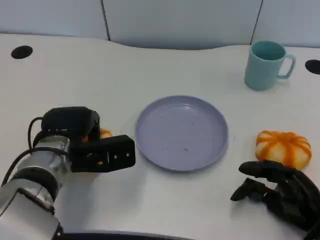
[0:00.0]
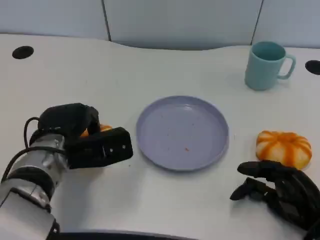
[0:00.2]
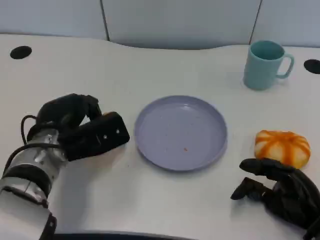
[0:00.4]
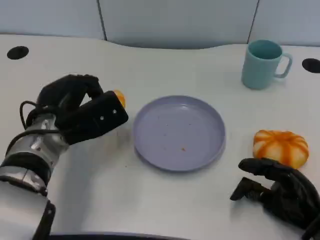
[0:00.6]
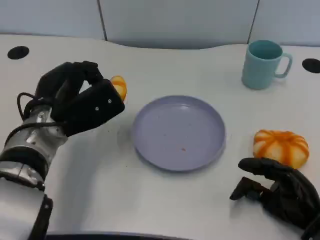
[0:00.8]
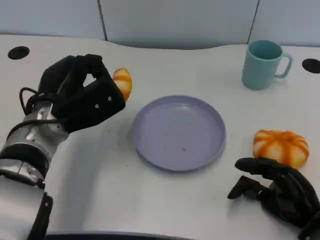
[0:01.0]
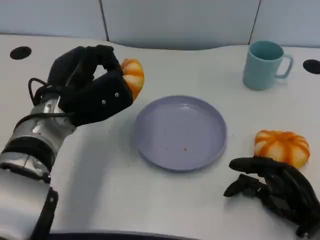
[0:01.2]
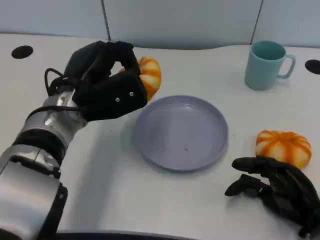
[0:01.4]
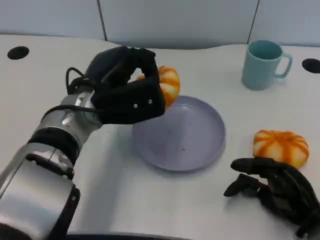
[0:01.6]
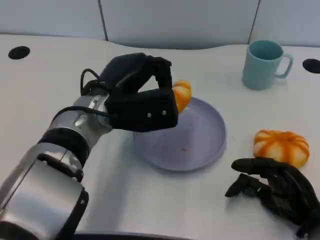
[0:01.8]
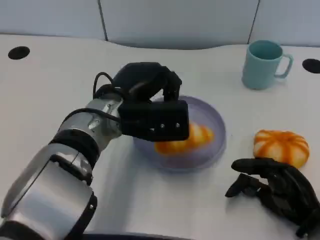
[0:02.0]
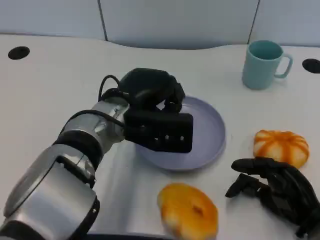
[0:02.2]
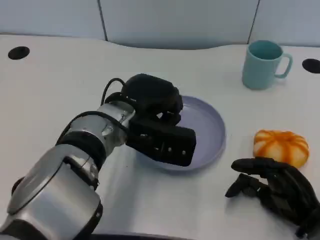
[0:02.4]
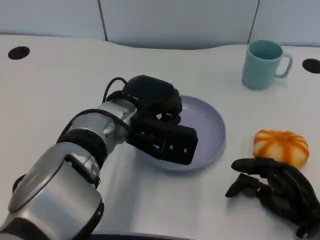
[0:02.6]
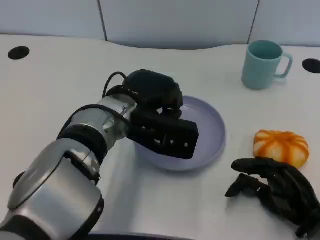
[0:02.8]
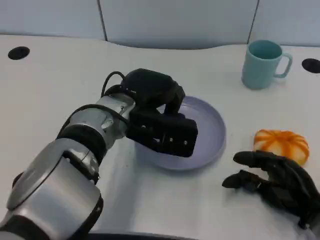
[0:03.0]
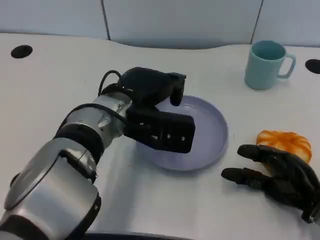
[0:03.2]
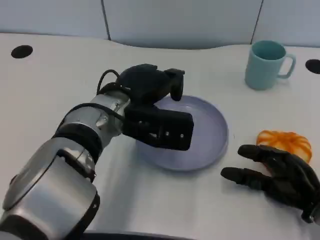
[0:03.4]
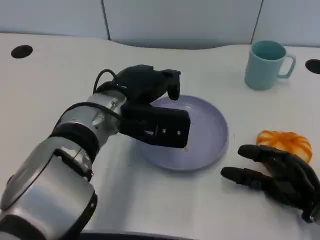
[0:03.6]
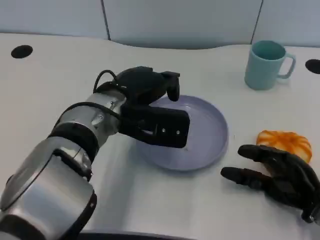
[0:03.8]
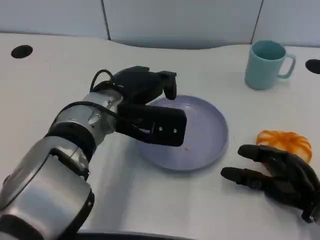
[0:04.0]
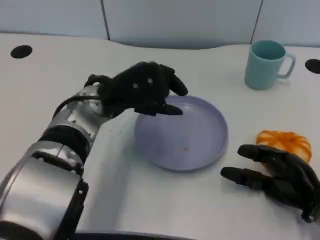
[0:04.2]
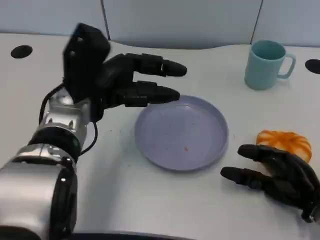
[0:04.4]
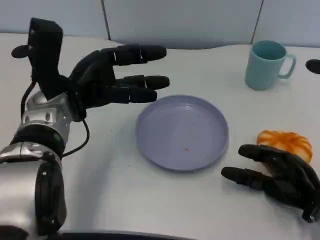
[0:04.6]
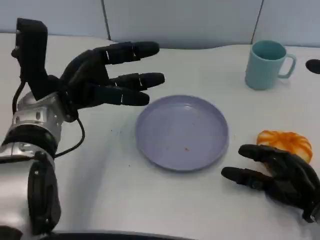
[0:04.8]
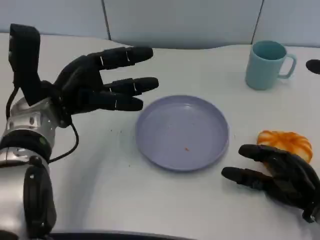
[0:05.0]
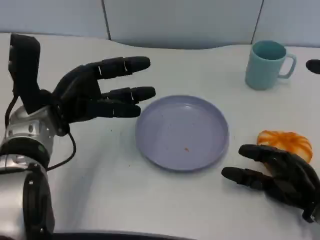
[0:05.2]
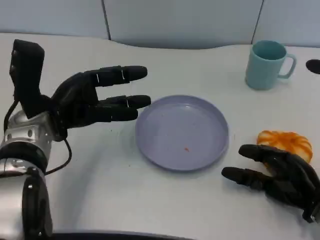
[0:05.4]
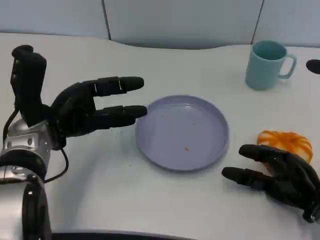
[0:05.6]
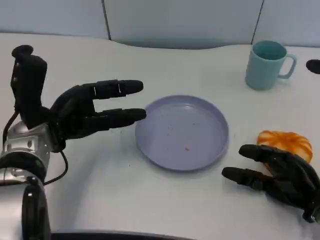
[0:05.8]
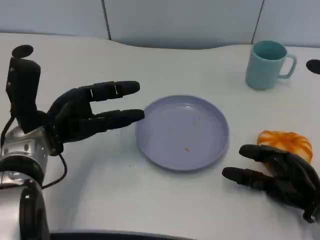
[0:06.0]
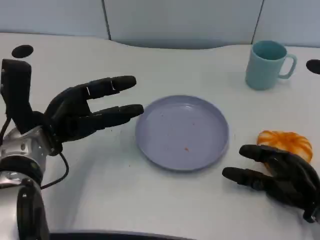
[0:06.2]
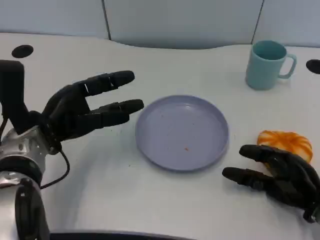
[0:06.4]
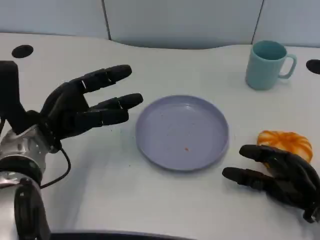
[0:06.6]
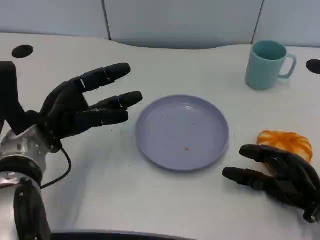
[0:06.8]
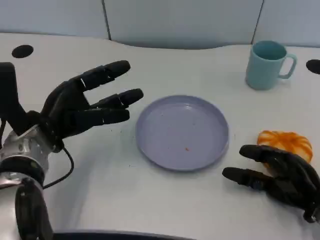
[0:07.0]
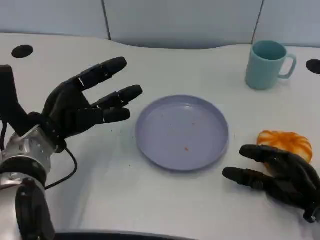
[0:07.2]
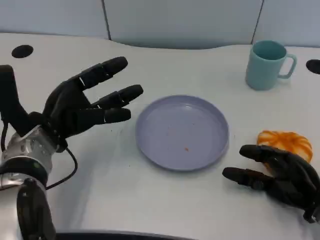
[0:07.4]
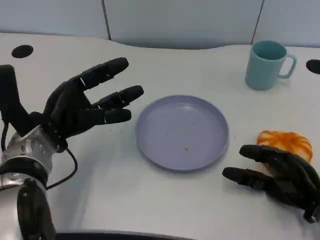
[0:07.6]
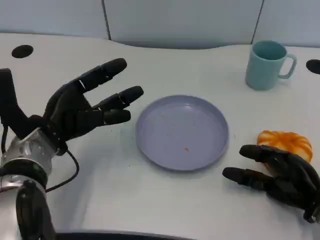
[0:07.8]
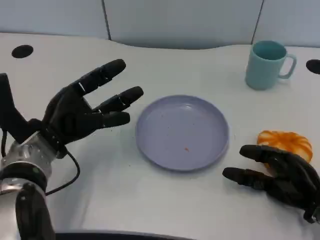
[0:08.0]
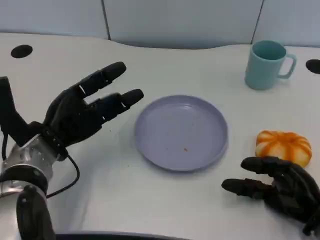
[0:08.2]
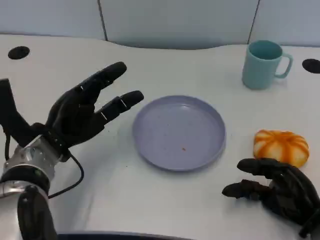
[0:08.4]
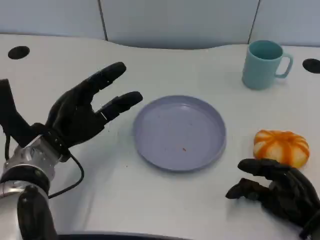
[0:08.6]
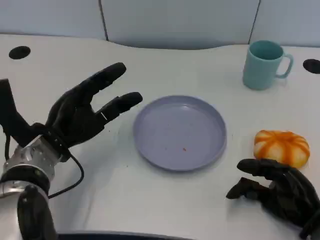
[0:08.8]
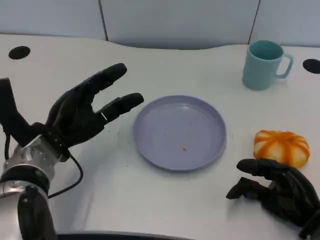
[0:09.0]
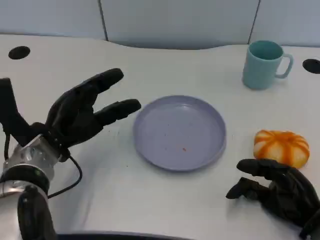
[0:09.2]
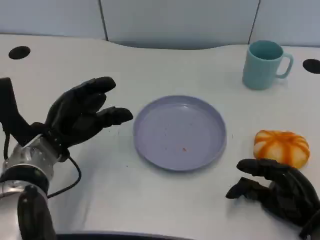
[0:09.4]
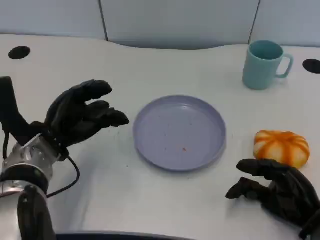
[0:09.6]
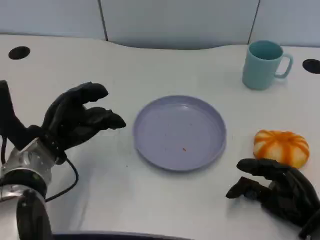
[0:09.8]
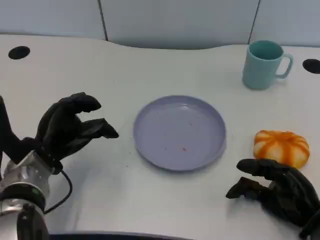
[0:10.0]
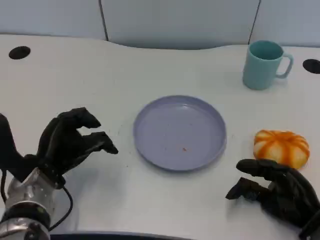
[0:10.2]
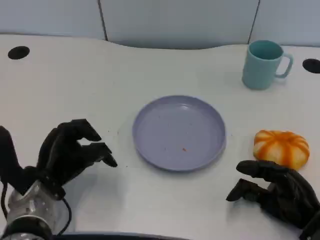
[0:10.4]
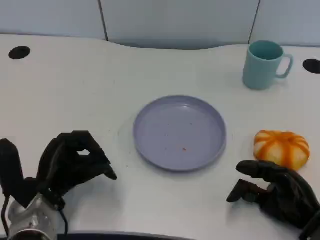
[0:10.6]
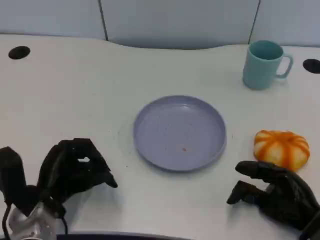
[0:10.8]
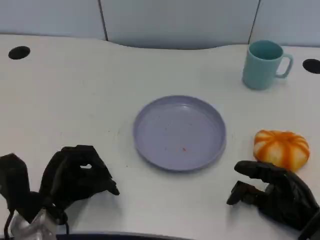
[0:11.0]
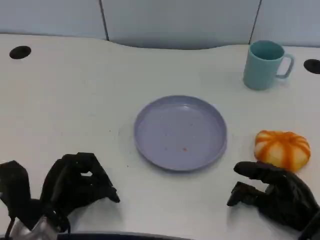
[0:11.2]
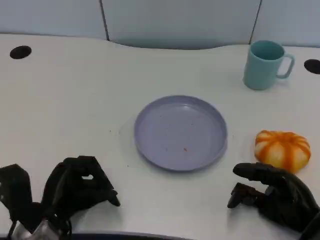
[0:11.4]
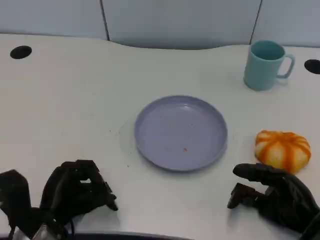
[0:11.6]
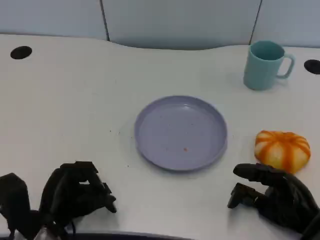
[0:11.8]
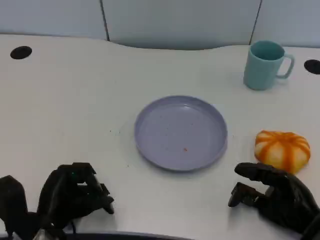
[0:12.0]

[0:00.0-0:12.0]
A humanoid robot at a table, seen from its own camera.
Task of the whole recording: Grasp the bread from the table and place it into the plate.
0:00.0 to 0:01.6: The left hand goes some 10 cm upward and to the right.
0:03.0 to 0:04.4: The left hand moves to the left, approximately 5 cm.
0:04.4 to 0:06.0: The left hand travels to the left by about 5 cm.
0:06.0 to 0:07.6: The hands make only small movements.
0:07.6 to 0:09.0: The hands move only a little.
0:09.0 to 0:10.4: The left hand shifts by approximately 5 cm.
0:10.4 to 0:12.0: The left hand moves backward, some 5 cm.

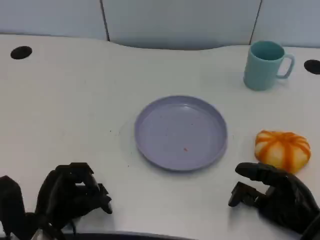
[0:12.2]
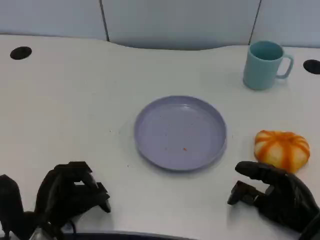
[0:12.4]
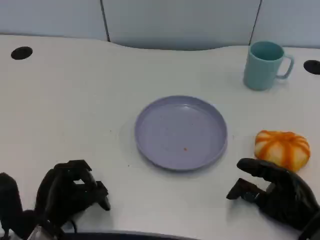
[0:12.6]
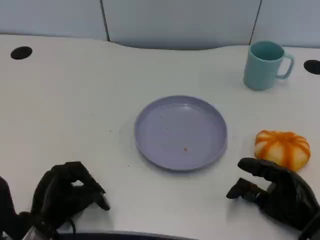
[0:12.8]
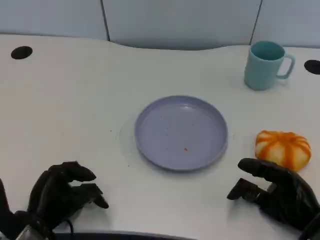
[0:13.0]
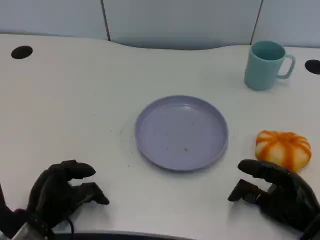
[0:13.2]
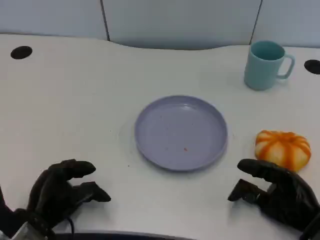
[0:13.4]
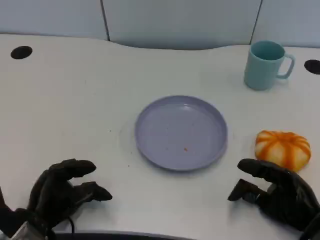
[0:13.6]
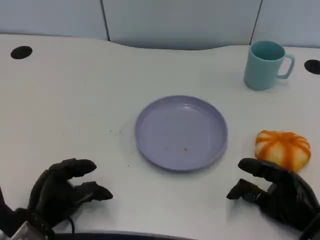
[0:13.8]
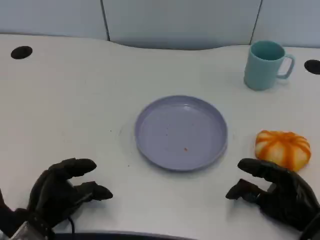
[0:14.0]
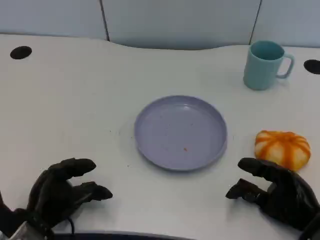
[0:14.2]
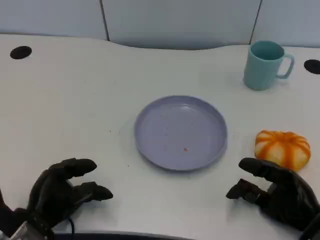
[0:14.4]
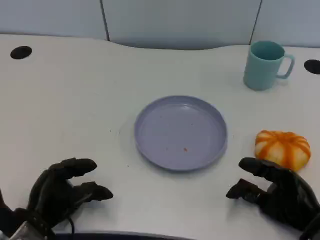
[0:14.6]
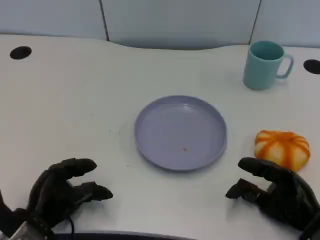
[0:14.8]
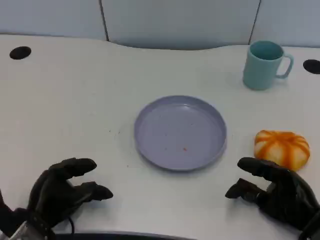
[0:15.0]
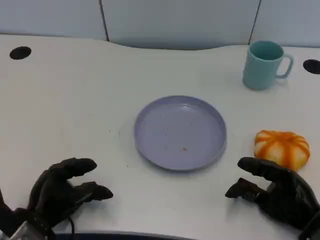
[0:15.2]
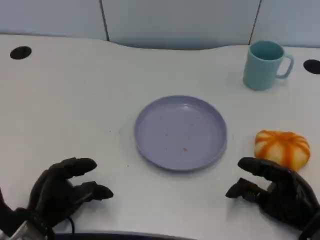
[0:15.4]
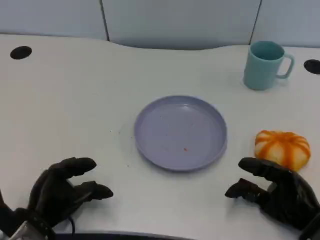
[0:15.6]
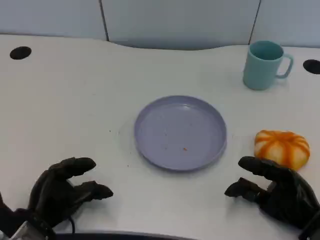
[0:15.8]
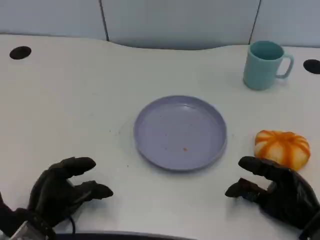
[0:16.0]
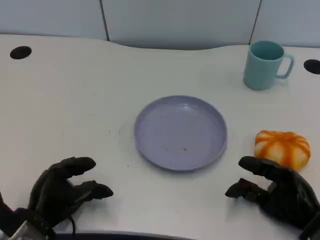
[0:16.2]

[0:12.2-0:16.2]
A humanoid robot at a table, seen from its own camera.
Task of the whole recording: Grasp the bread from the table and place it into the plate.
0:12.2 to 0:13.6: The hands move only a little.
0:13.6 to 0:16.2: Both hands stay about where they are.

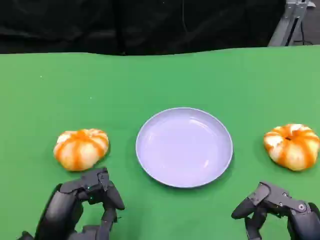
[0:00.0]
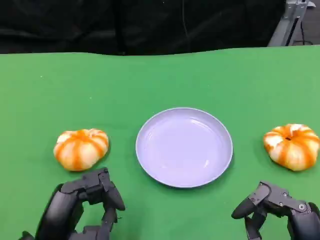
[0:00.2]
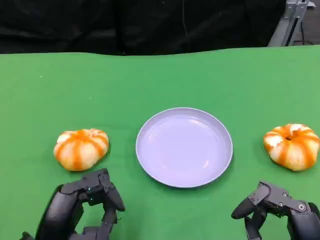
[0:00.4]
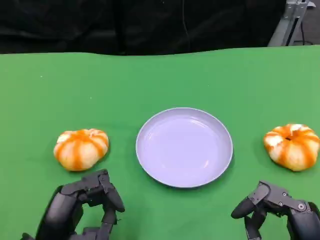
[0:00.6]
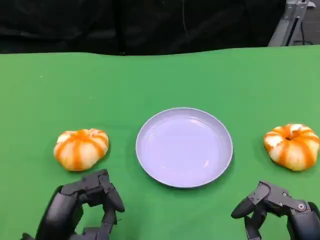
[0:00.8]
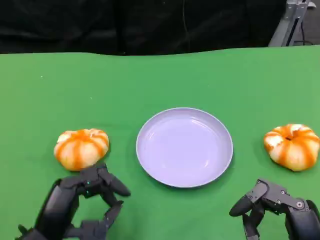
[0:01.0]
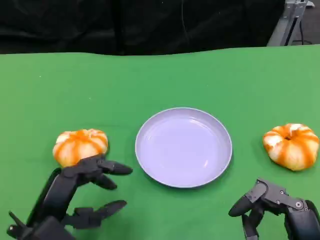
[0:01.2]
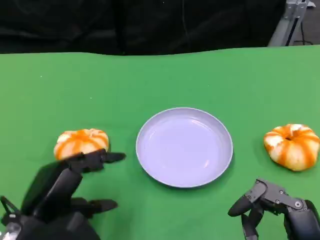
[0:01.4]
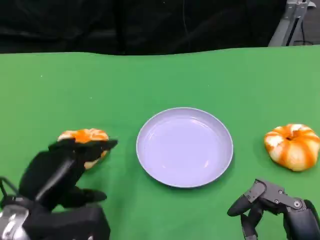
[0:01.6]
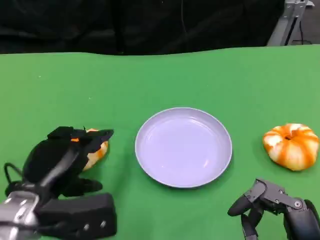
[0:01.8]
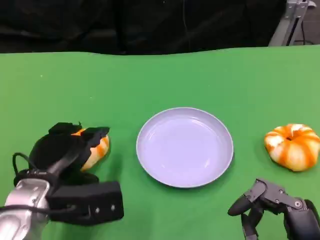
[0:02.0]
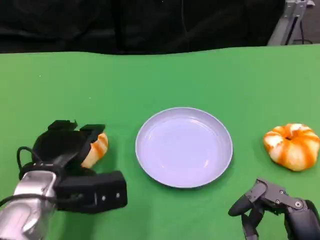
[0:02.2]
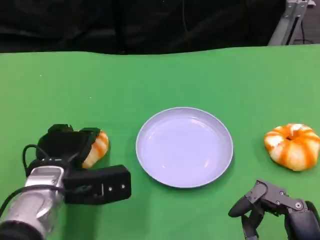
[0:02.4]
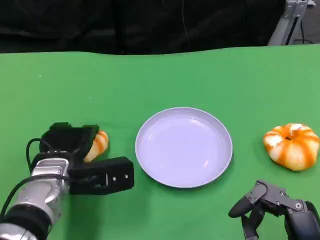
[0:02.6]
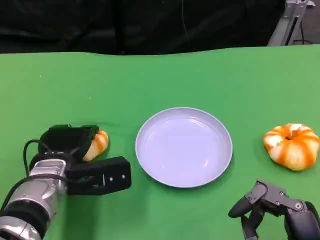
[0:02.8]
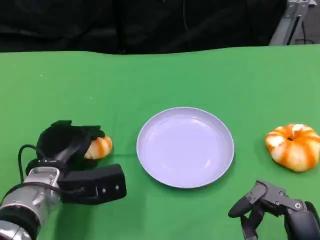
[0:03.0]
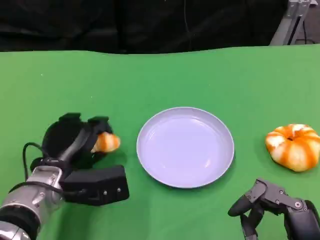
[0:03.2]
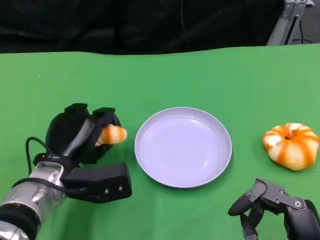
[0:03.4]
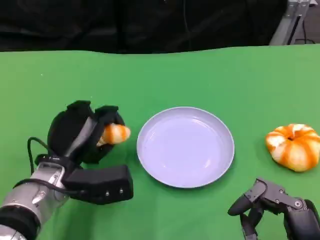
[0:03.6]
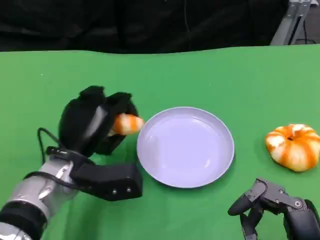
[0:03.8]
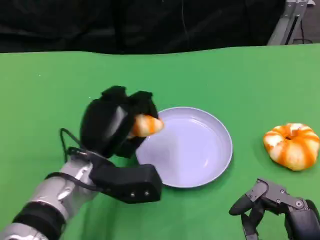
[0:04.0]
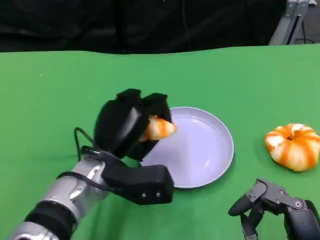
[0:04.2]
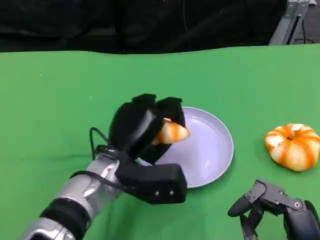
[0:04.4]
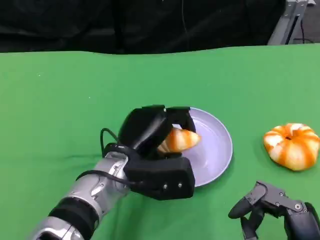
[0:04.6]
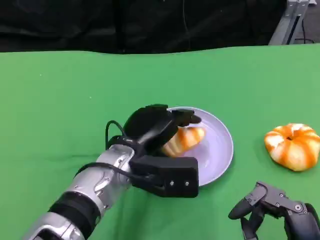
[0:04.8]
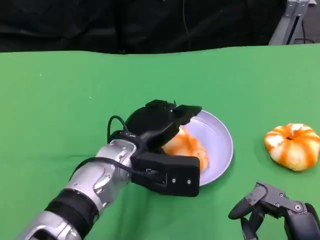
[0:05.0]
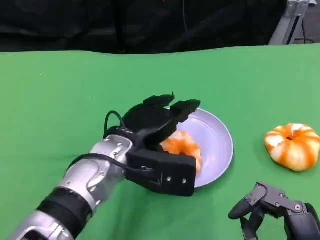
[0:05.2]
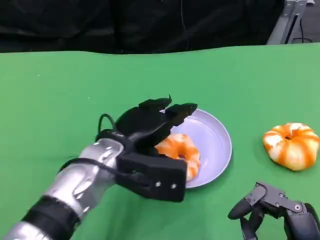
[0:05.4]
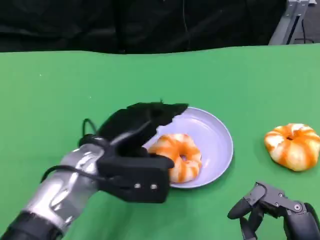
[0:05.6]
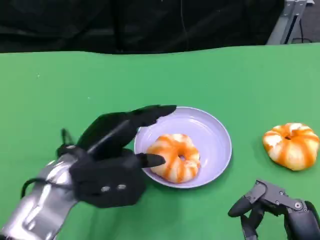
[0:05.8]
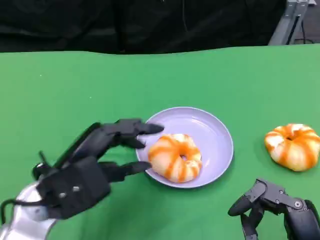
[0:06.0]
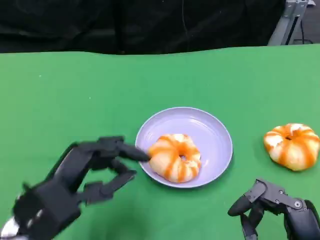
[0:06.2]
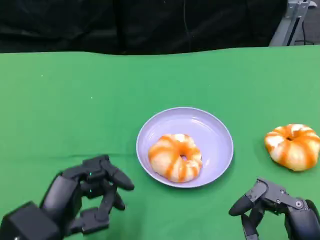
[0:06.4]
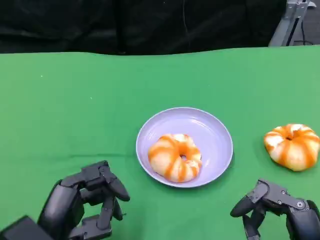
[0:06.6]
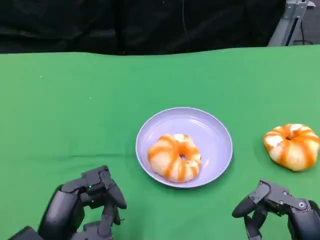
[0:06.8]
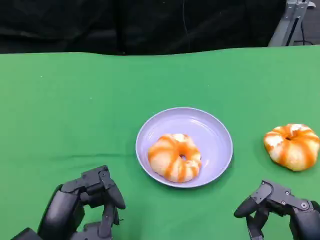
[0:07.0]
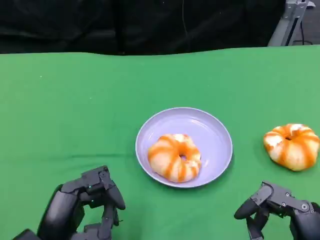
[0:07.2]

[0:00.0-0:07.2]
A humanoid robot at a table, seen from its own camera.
Task of the whole recording: Grasp the bread from the table and place it into the plate.
0:01.4 to 0:02.8: The left hand travels forward by roughly 10 cm.
0:02.8 to 0:04.4: The left hand shifts some 10 cm to the right.
0:04.4 to 0:05.8: The left hand moves to the left, about 10 cm.
0:05.8 to 0:07.2: The left hand heads backward and downward, covering about 10 cm.
